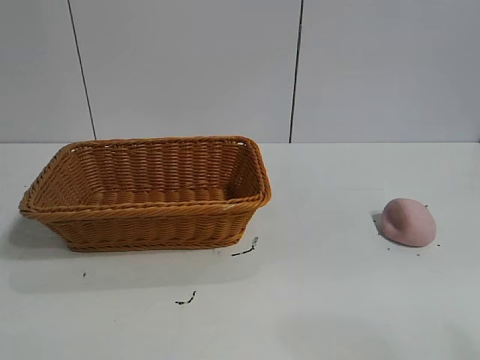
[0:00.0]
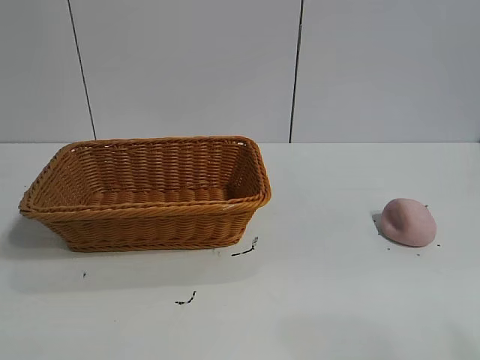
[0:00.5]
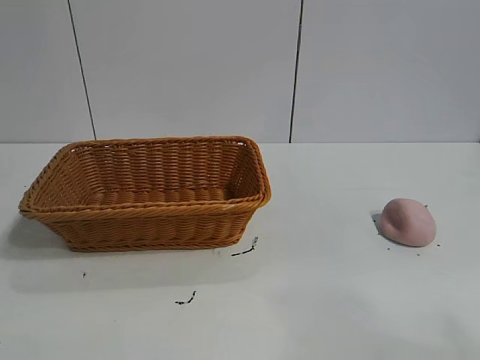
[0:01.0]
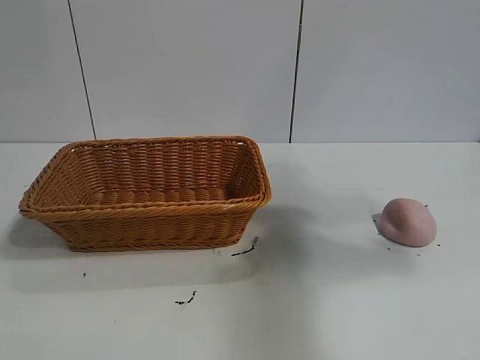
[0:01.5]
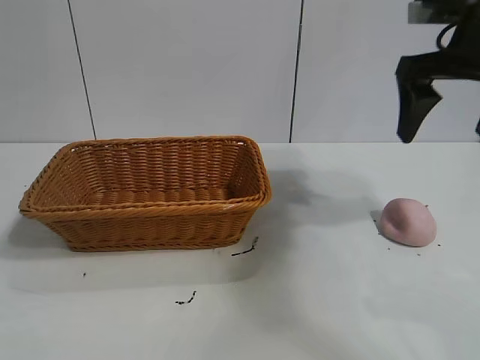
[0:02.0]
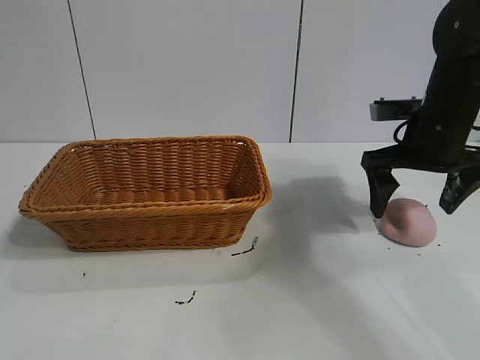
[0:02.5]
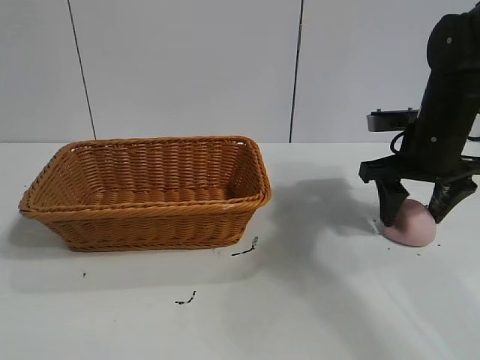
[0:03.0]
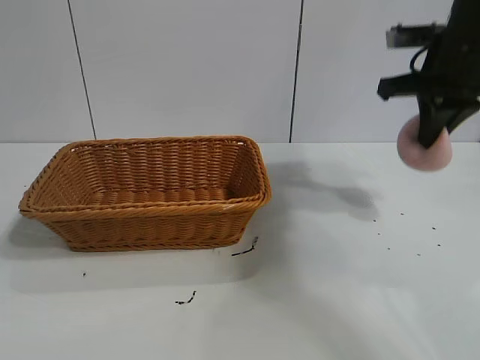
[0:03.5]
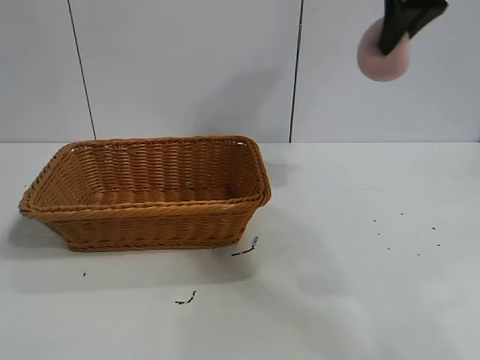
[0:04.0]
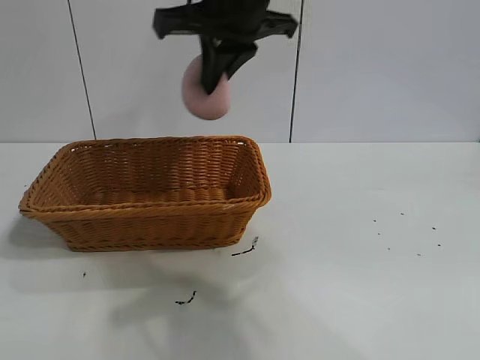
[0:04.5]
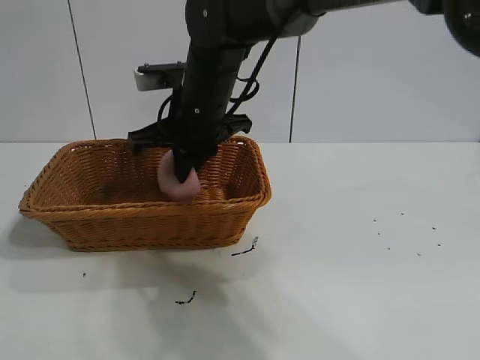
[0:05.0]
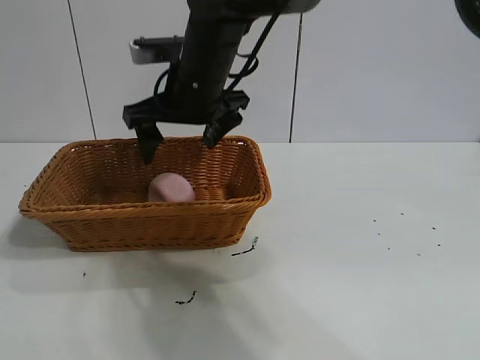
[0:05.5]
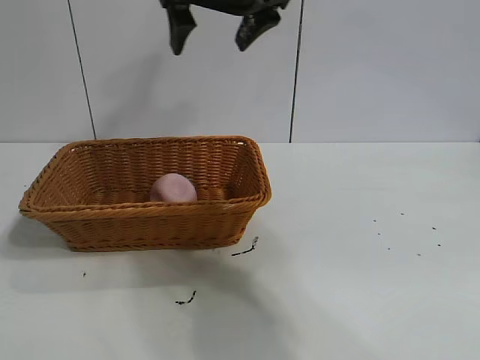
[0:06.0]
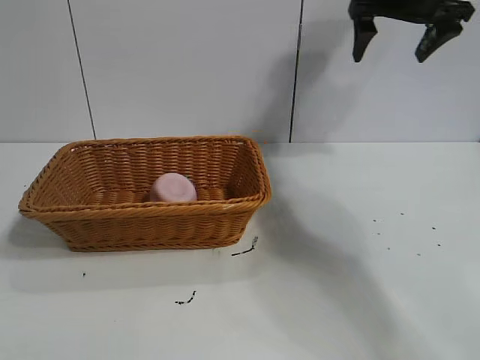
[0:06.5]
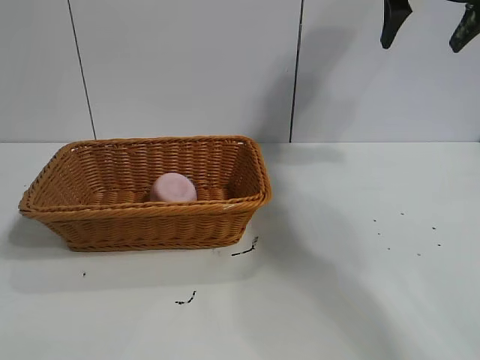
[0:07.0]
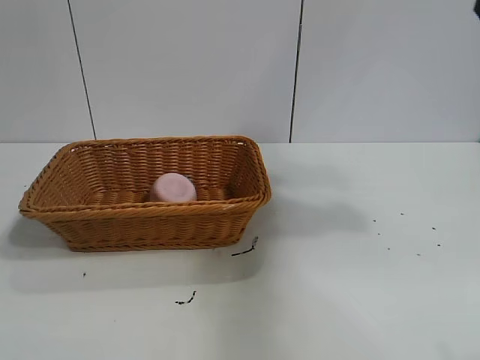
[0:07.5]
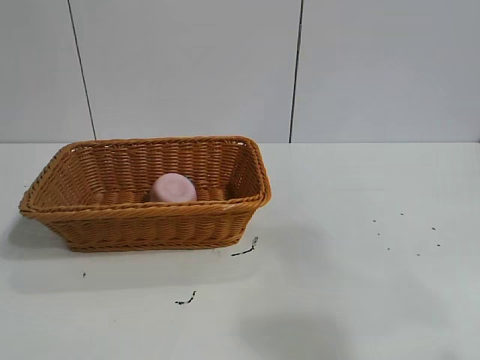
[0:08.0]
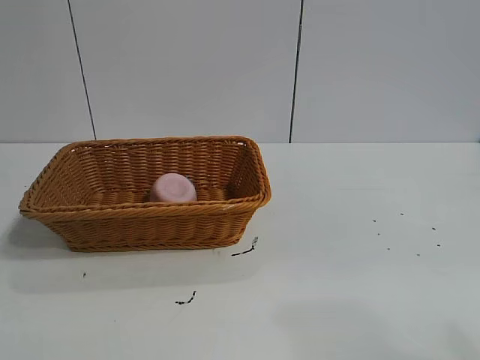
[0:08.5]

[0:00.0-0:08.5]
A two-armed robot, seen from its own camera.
Task of the whole recording: pick up the peach and put it into the basket.
Step, 0:01.0 to 0:03.0: Grasp the peach with right gripper.
Step, 0:03.5 to 0:05.5: Place the peach in the basket with right gripper.

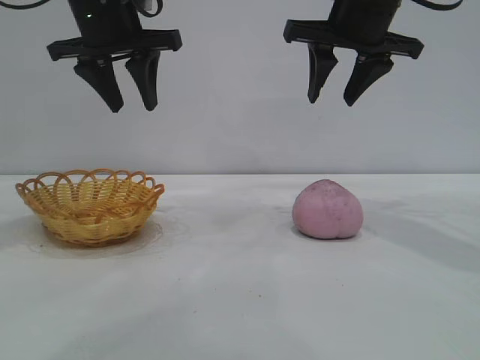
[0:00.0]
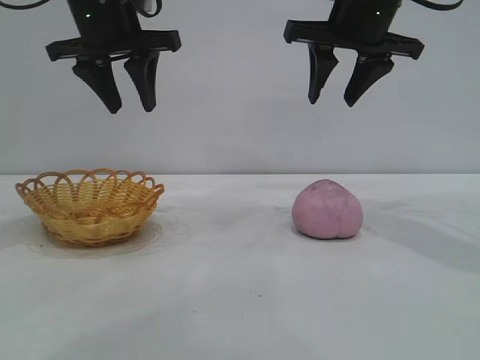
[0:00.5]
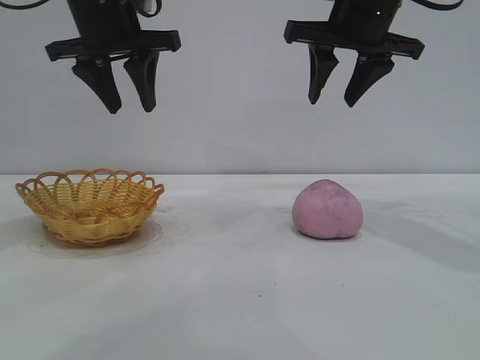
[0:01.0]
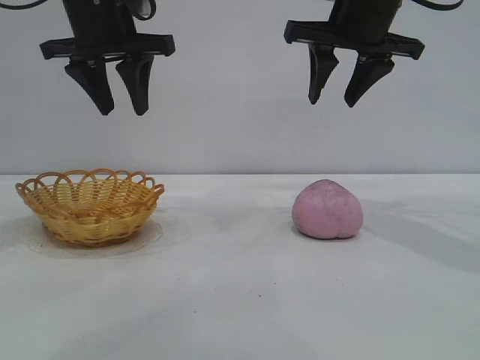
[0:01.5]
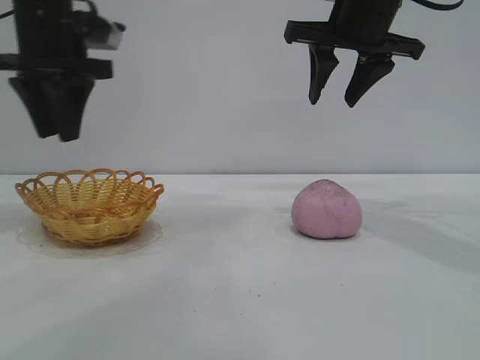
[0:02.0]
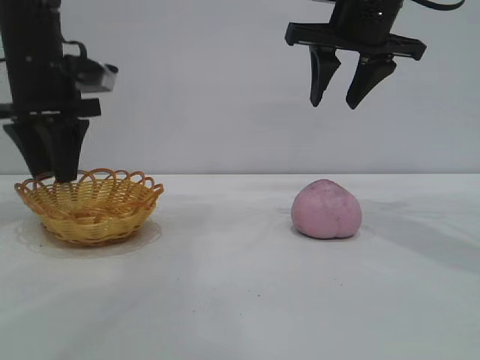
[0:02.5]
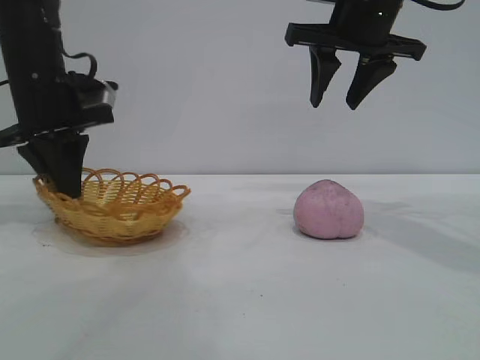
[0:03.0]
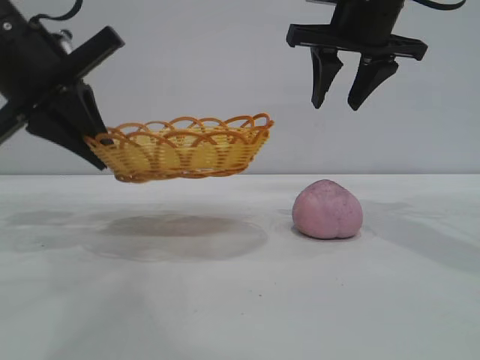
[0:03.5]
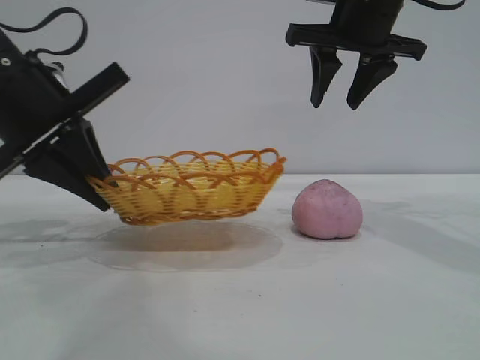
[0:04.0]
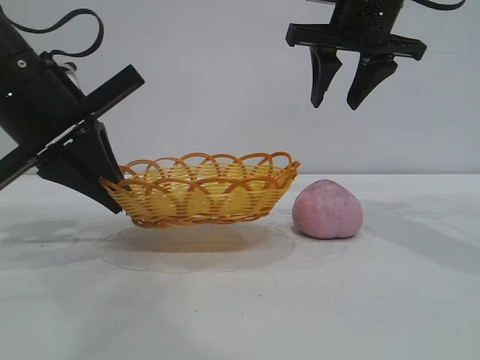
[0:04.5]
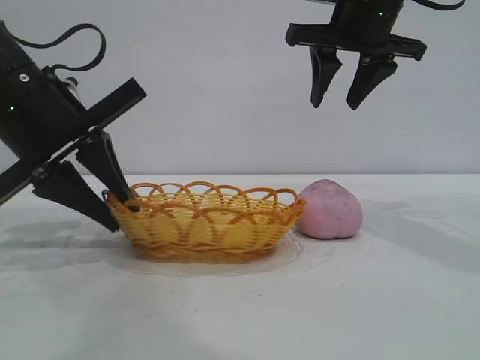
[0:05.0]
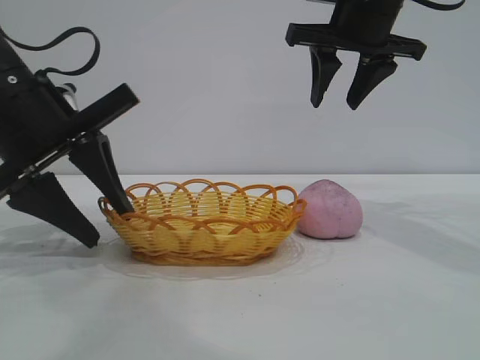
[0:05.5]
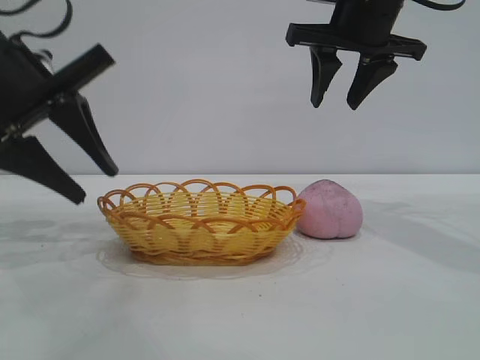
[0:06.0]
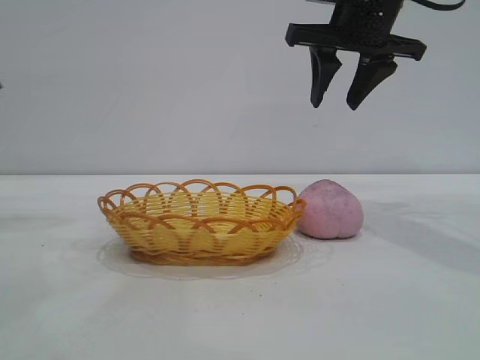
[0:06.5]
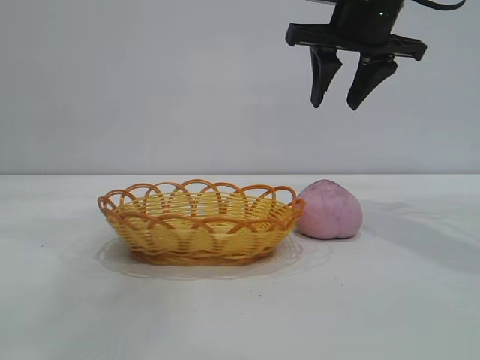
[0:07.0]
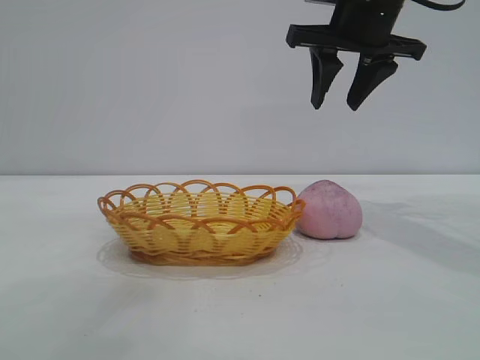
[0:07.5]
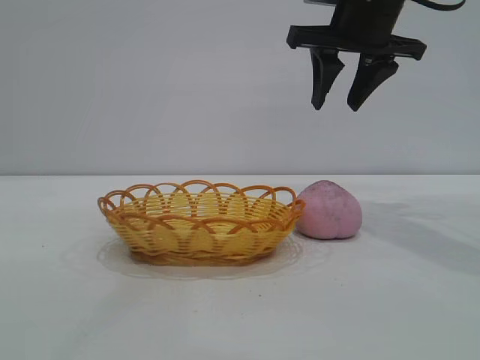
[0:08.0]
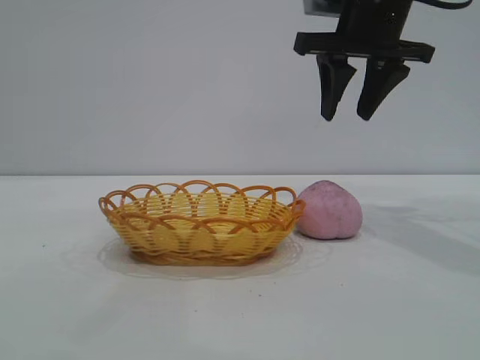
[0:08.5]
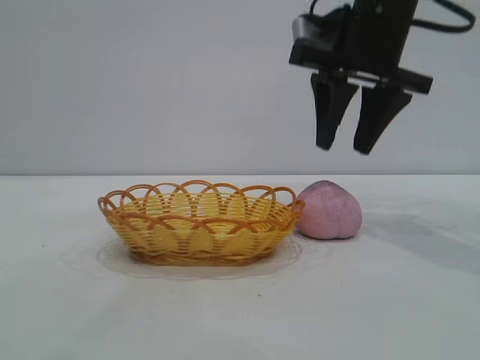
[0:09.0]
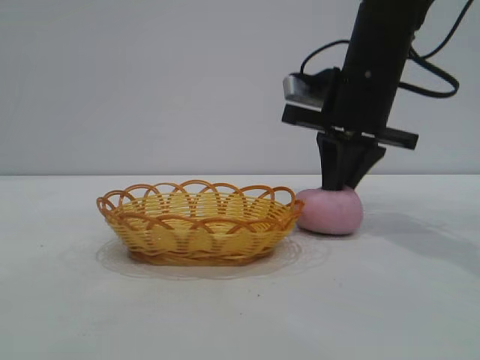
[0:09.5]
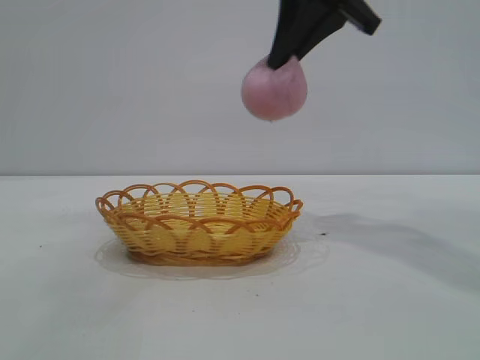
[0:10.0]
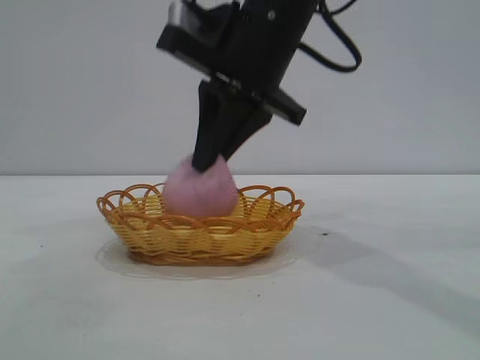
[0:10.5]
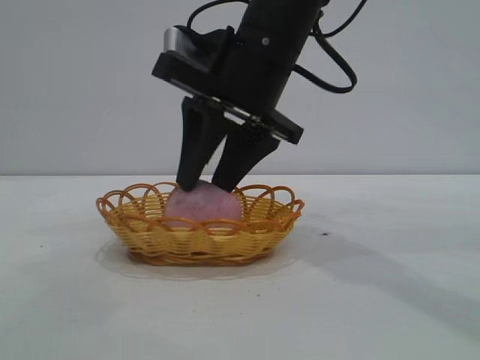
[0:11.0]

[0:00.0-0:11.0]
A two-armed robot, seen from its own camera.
Task of the whole recording: pick up the peach and put it into the basket.
Step, 0:00.0 to 0:06.0: Move the basket to the center of view.
Step, 0:06.5 to 0:09.5: Pick up the peach.
